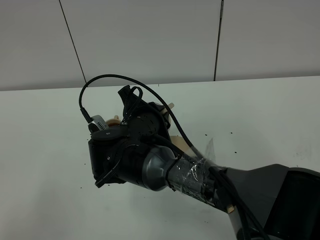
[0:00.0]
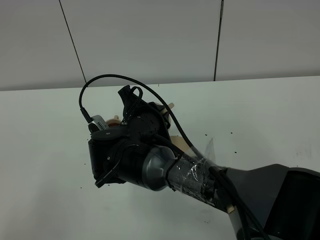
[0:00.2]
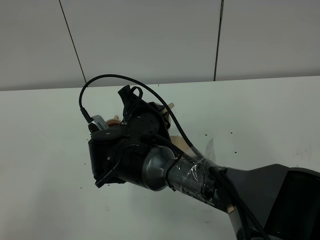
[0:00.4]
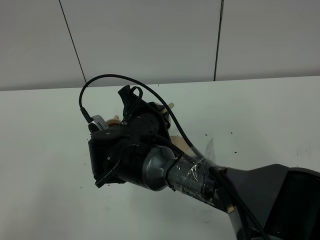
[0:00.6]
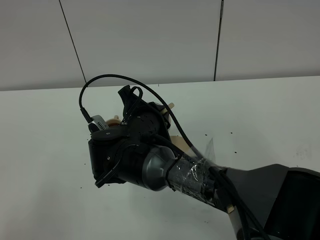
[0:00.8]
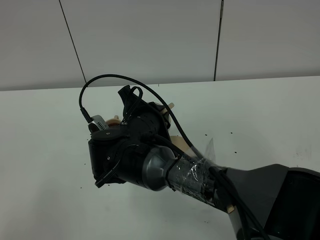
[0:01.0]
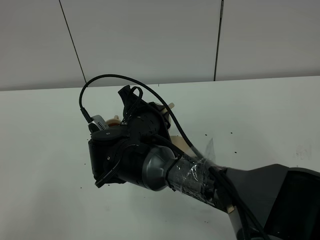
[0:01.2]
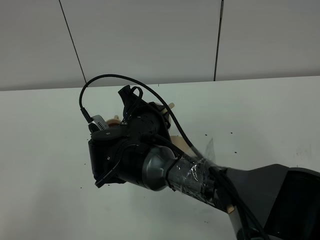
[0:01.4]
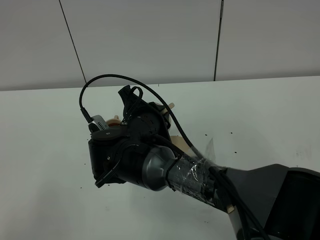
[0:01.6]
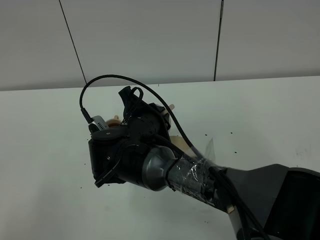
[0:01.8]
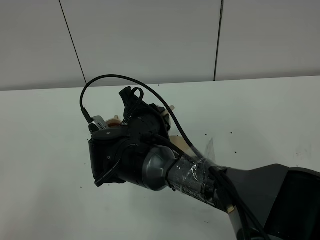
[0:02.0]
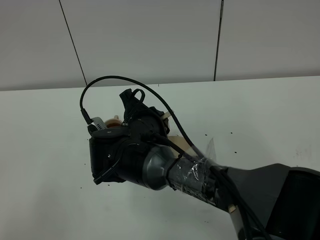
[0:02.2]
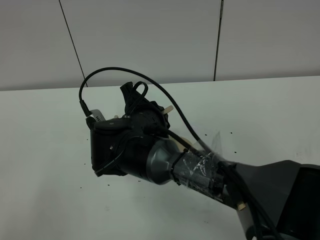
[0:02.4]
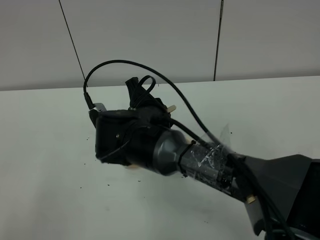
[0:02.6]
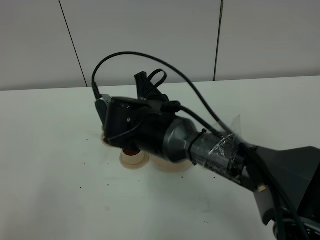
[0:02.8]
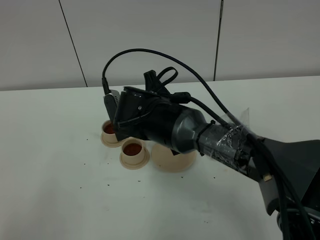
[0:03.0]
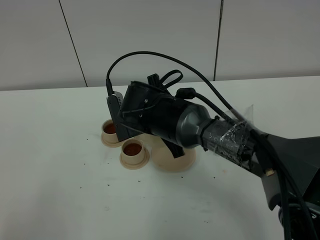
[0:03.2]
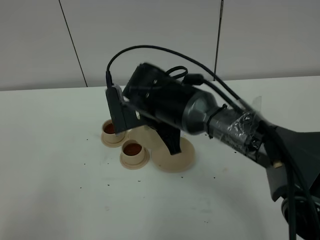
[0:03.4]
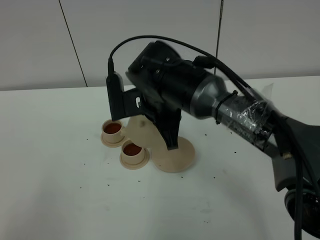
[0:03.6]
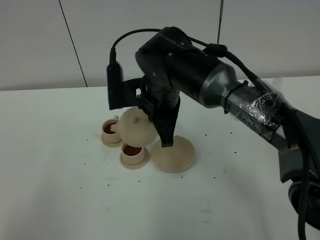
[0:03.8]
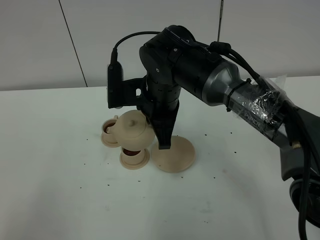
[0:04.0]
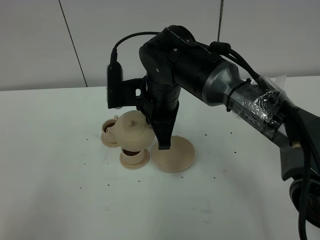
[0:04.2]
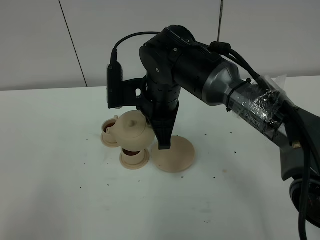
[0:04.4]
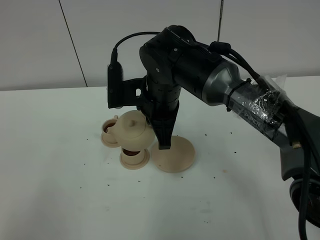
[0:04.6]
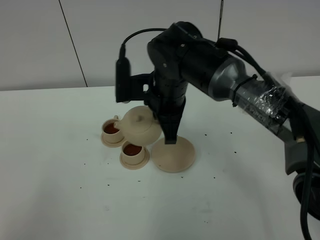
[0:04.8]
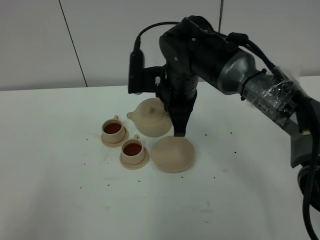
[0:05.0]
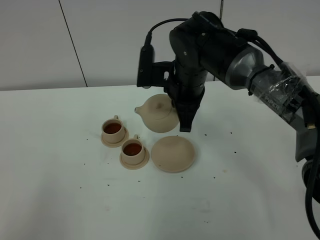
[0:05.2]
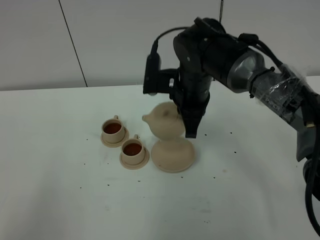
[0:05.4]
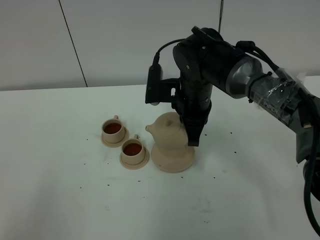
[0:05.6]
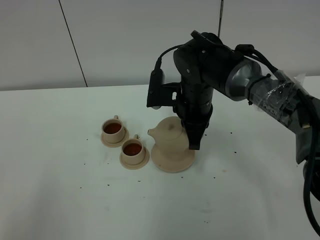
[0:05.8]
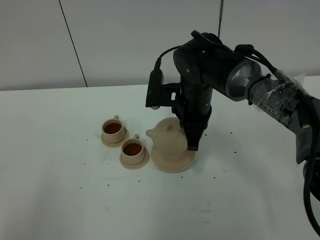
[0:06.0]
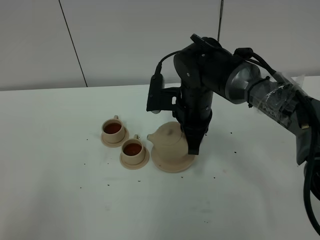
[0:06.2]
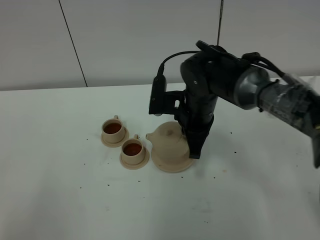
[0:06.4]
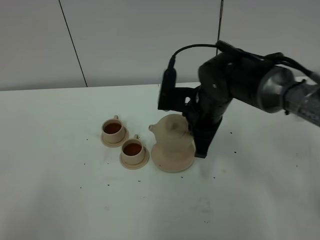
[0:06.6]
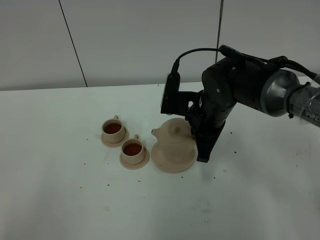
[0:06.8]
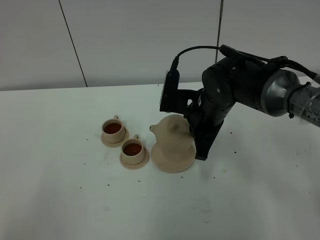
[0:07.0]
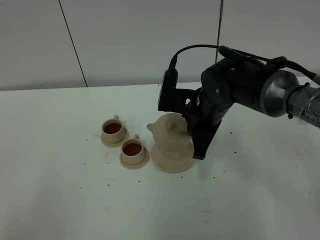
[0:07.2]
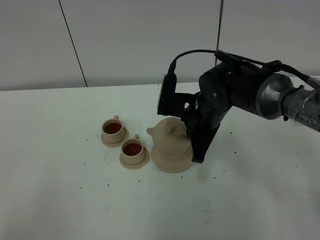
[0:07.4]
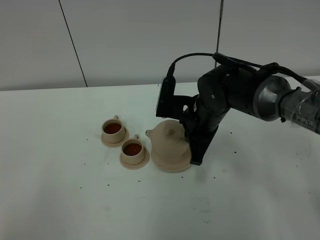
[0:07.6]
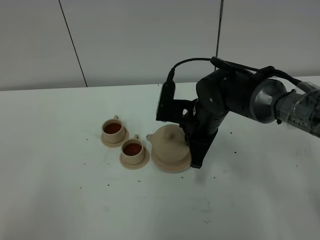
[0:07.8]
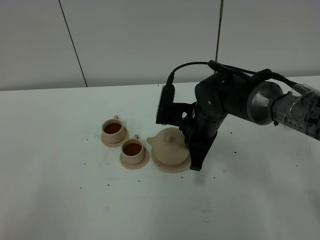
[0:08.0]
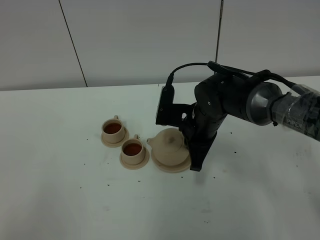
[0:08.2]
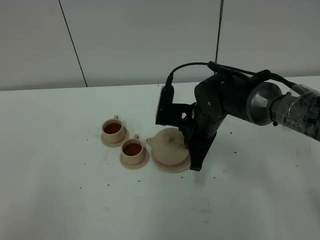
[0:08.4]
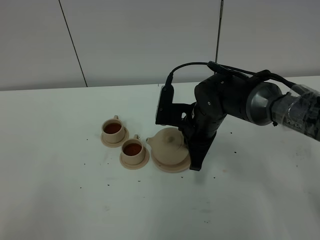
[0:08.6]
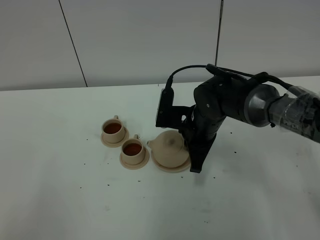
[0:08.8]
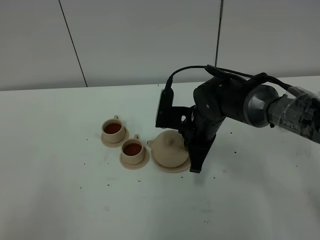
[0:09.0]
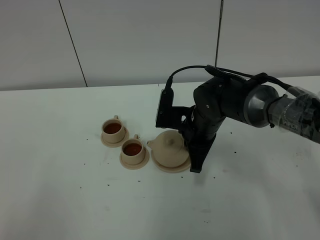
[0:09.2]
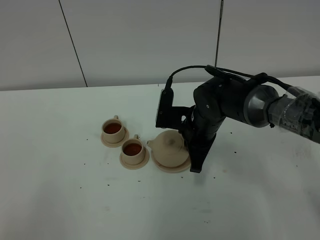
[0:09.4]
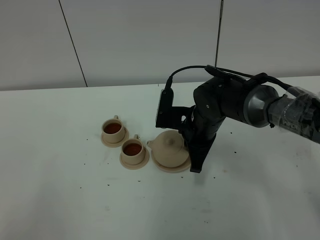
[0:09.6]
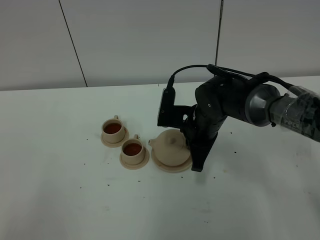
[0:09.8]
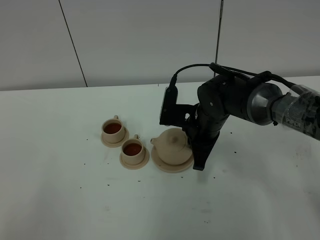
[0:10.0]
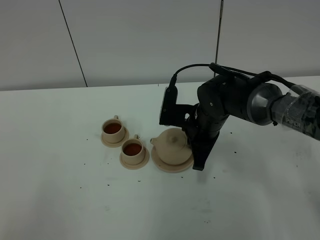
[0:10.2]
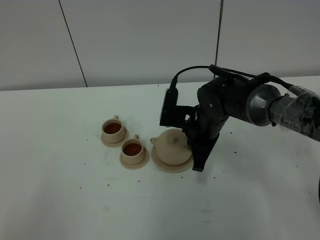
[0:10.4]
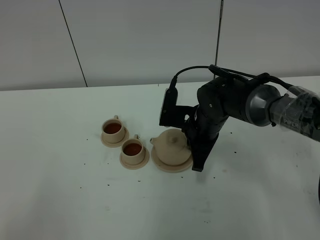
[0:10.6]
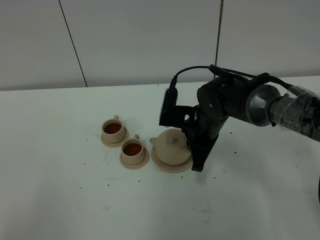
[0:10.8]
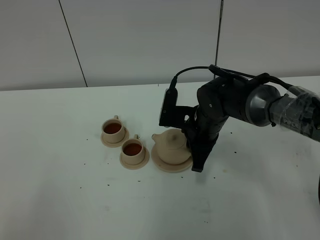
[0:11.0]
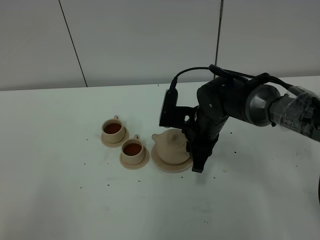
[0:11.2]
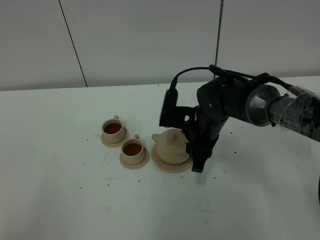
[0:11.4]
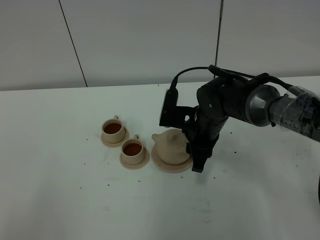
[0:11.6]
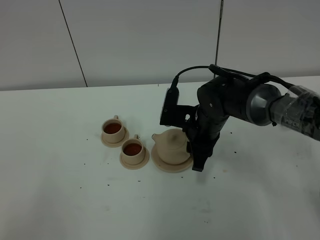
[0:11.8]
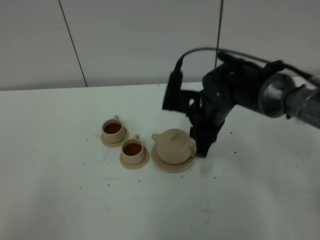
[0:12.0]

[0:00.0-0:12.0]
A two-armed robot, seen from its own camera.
Task of the whole recording: grasp the brown teapot and pour the tea into the two brown teacups one by one, put the brown teapot back in its original place.
Step, 0:00.0 to 0:02.6: Pour tea into the teacup with the right gripper.
0:00.0 to 0:01.6: Neither gripper changes place.
0:04.4 to 0:06.0: The right gripper travels to the right by roughly 5 cm.
0:06.0 to 0:09.0: The grippers stay close to where they were, moving slightly.
0:09.0 to 0:10.4: Both grippers stay put.
0:10.4 to 0:12.0: The right gripper travels upward by approximately 5 cm, and opens.

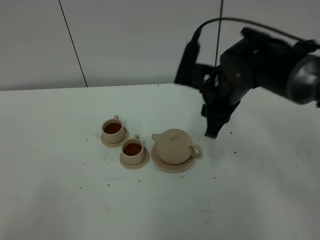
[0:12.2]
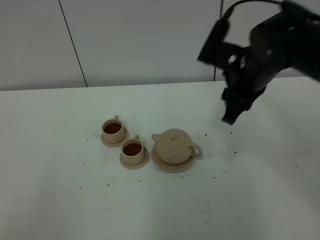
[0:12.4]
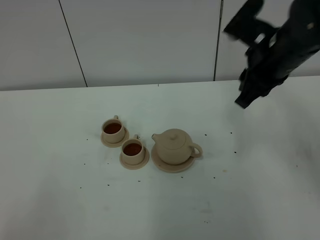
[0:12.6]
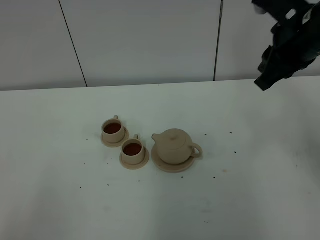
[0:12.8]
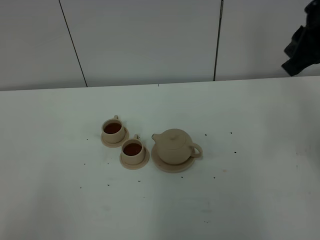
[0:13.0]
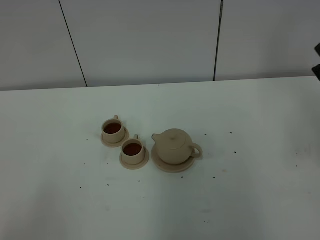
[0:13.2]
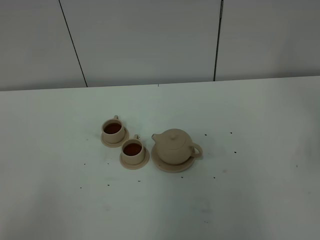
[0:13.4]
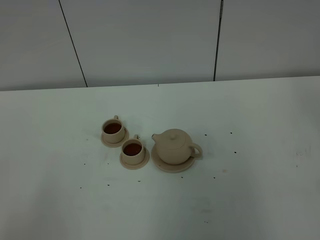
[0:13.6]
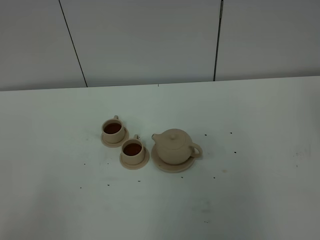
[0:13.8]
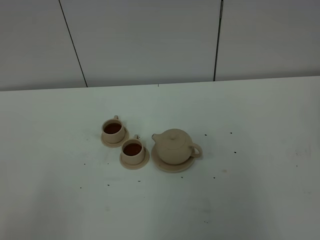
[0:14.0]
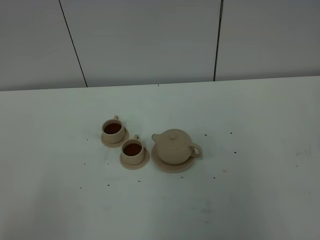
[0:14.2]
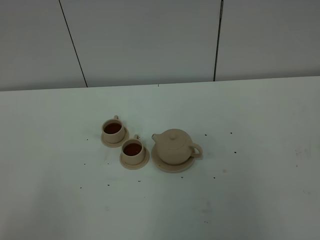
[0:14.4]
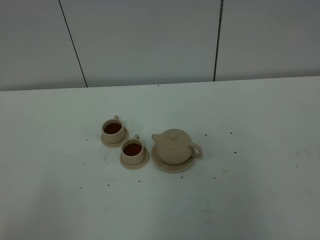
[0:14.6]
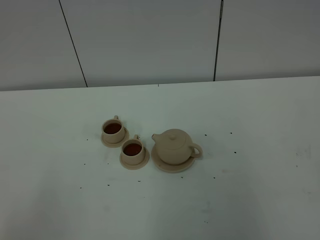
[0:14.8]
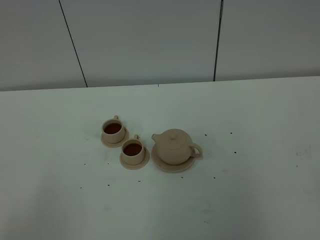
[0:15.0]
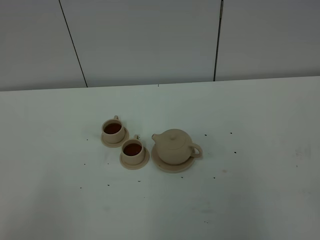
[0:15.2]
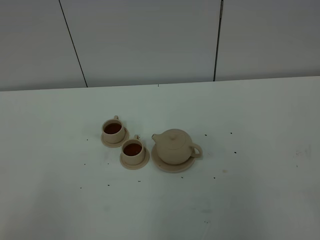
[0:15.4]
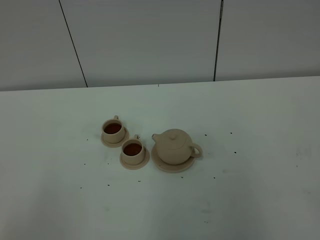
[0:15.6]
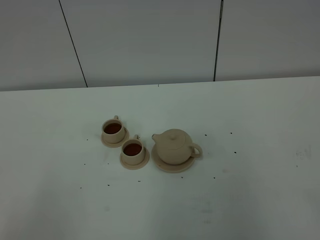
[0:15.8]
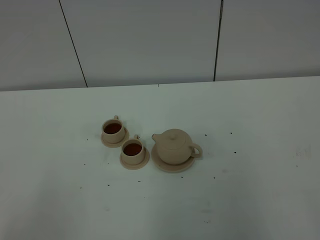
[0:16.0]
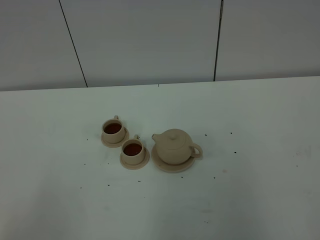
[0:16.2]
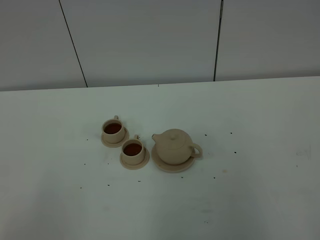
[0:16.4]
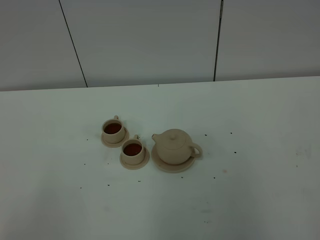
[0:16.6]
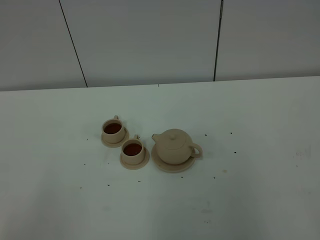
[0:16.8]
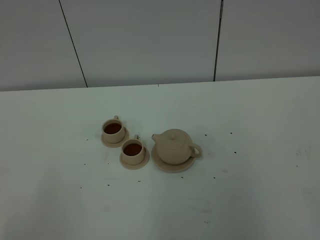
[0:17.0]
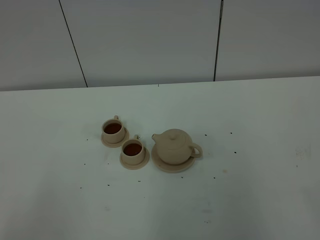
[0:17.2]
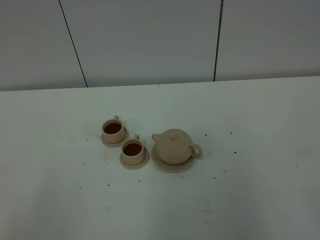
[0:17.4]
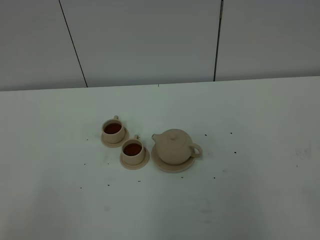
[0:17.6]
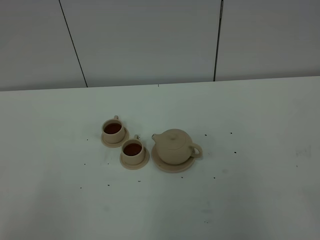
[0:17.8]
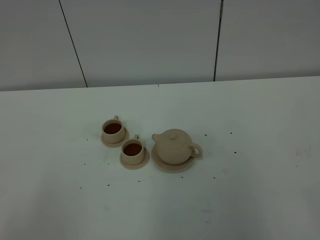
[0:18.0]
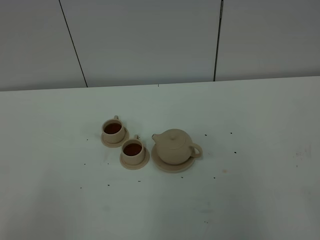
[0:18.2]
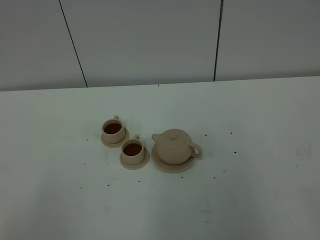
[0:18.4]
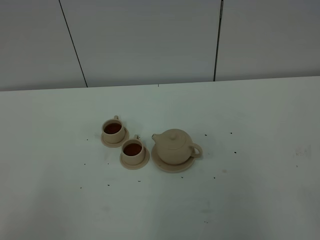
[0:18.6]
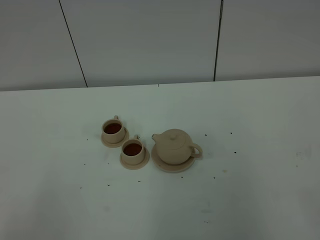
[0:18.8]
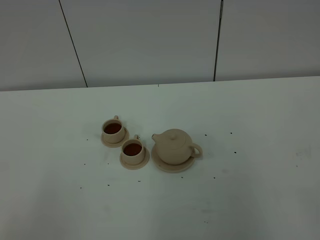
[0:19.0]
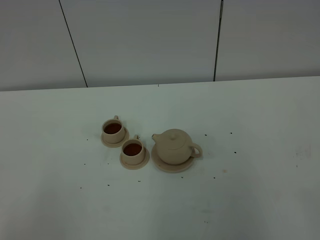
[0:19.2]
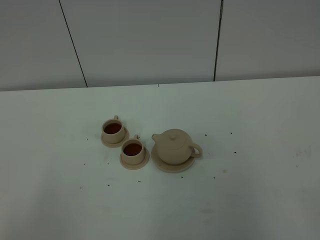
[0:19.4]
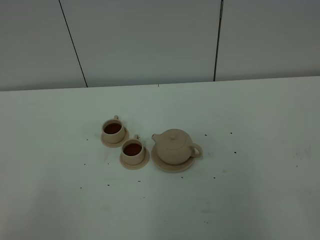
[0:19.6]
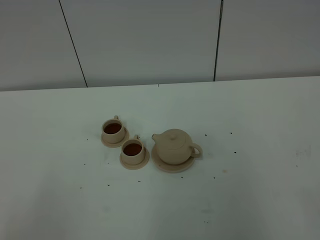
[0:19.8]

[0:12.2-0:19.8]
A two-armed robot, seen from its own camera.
Task of the whole recording: grasp the brown teapot and pour the tea into the two brown teacups one by one, put the brown teapot back in its original place.
0:12.2 to 0:13.8: The right gripper goes about 35 cm to the right, backward and upward, and closes its fingers.

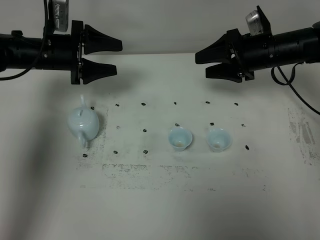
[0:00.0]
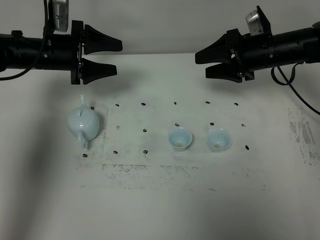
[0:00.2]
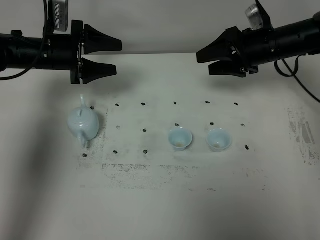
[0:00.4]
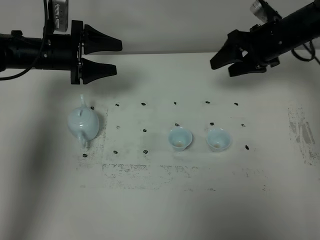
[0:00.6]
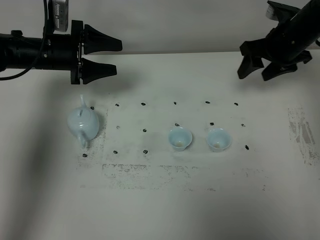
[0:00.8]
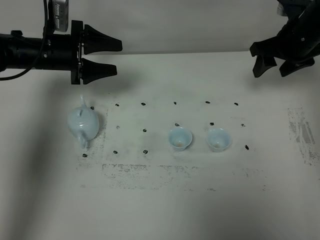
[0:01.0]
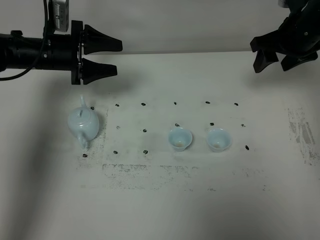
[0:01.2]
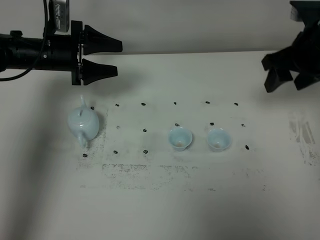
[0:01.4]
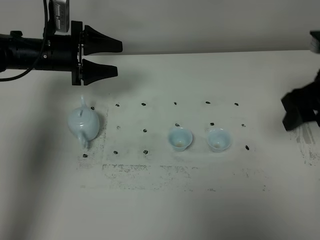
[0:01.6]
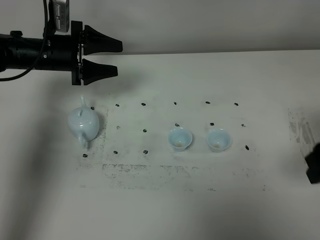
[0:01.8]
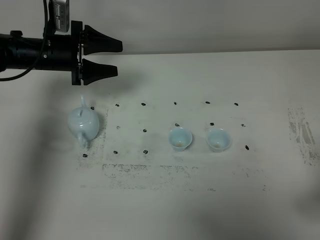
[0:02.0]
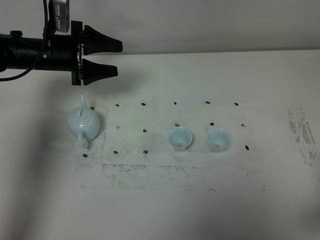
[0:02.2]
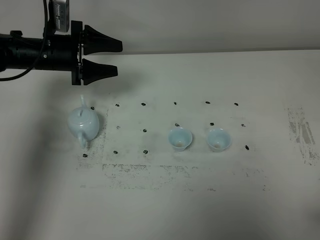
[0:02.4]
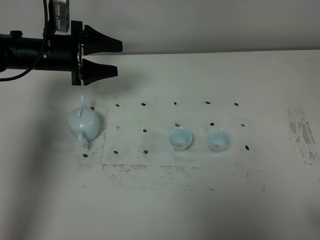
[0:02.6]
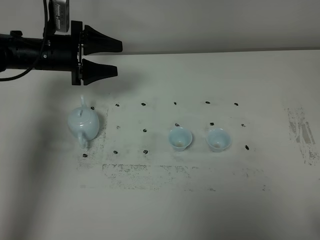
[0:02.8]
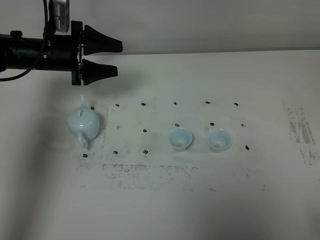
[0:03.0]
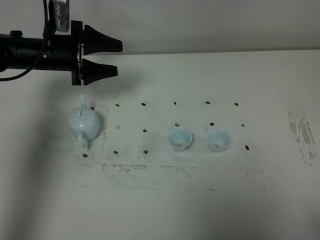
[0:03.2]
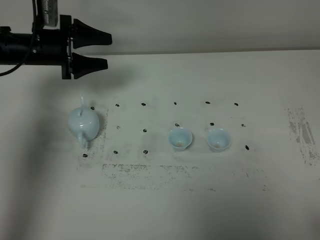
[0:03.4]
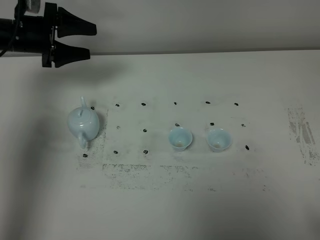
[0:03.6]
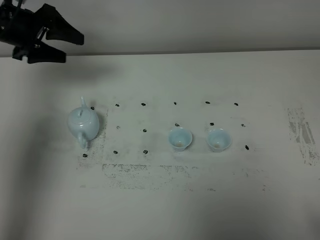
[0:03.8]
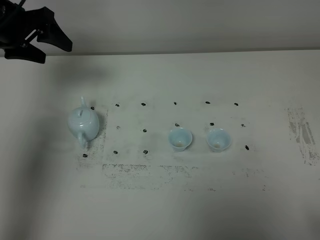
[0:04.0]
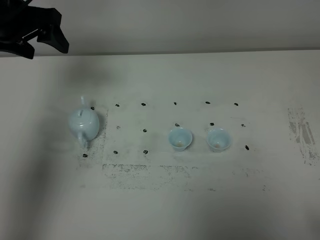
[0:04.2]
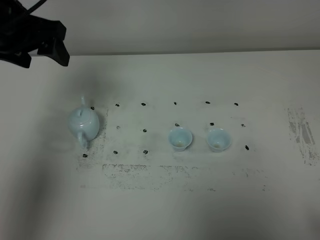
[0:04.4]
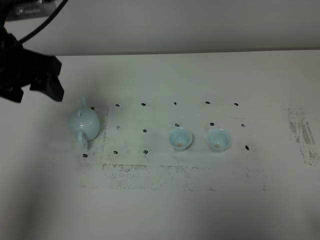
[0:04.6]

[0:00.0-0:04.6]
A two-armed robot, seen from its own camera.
Task of the whole recording: grasp the blue porcelain teapot and pour the tea into the two blue porcelain teacups one by one, put the blue porcelain teapot back in its original place.
0:00.0 to 0:01.6: The right gripper moves backward and upward, some 20 cm.
0:01.6 to 0:03.0: The right gripper heads backward, covering roughly 30 cm.
0:03.0 to 0:04.6: The left gripper is displaced backward and upward by about 20 cm.
